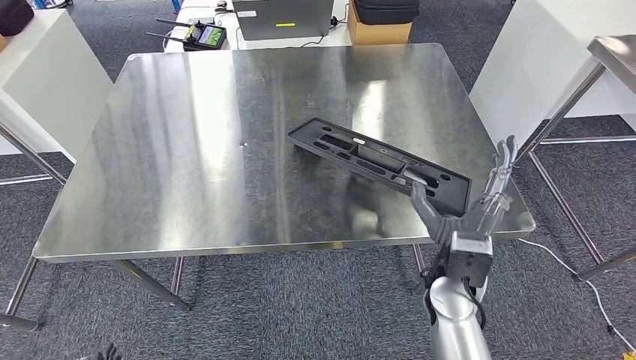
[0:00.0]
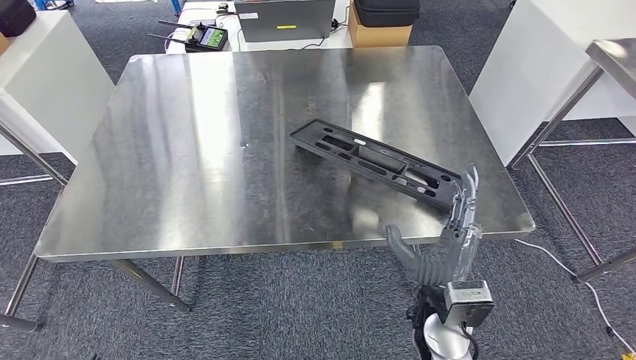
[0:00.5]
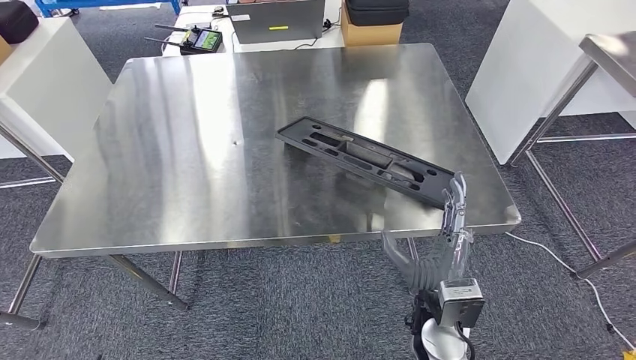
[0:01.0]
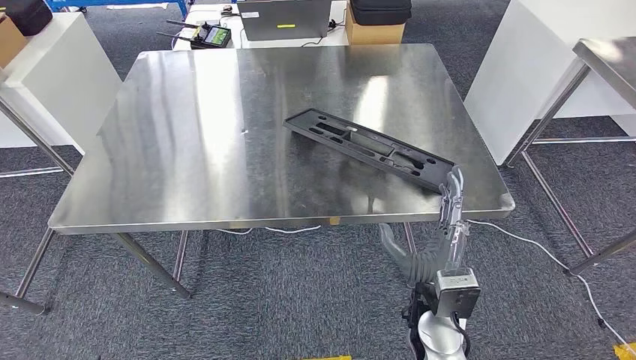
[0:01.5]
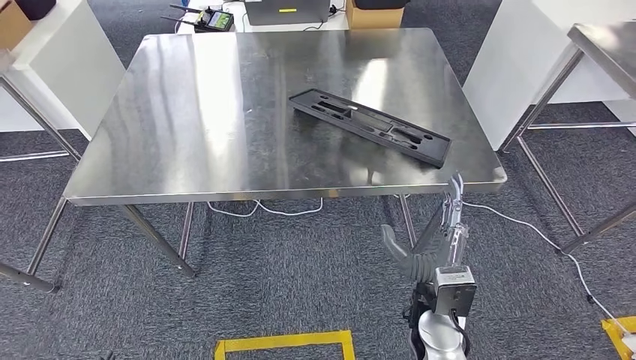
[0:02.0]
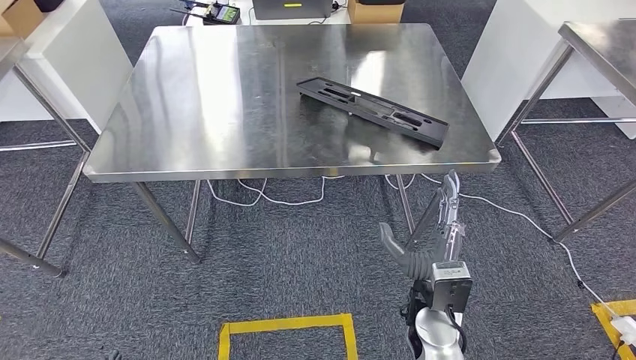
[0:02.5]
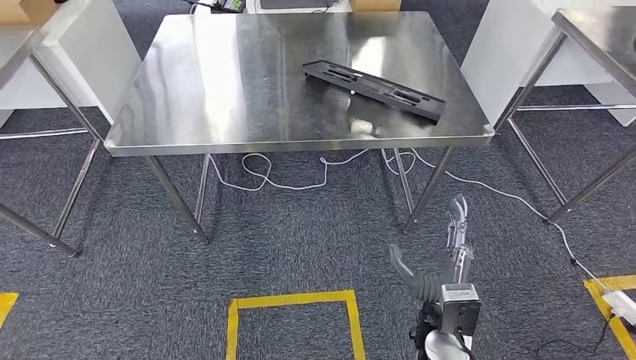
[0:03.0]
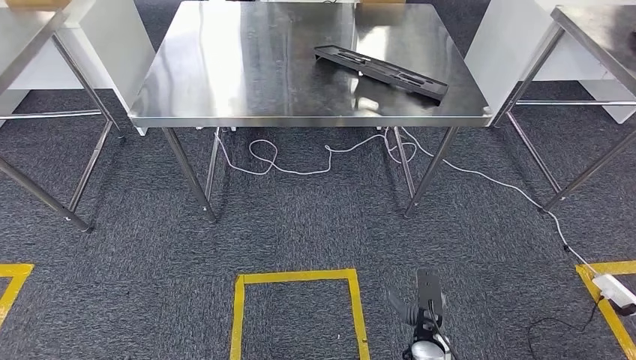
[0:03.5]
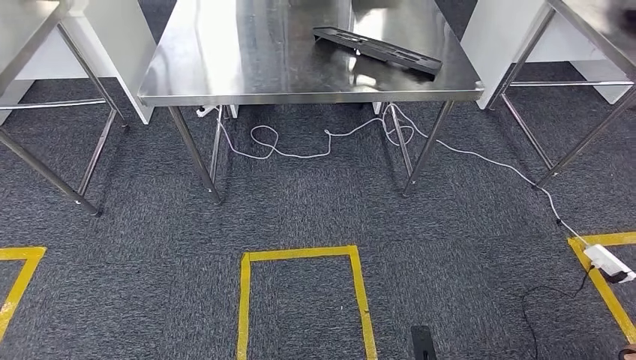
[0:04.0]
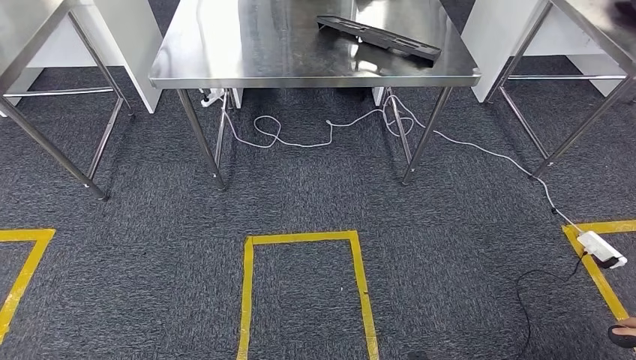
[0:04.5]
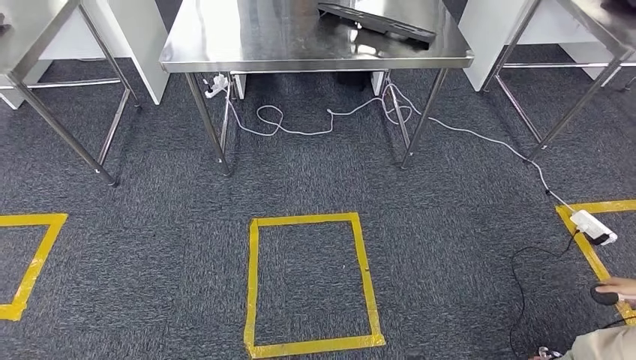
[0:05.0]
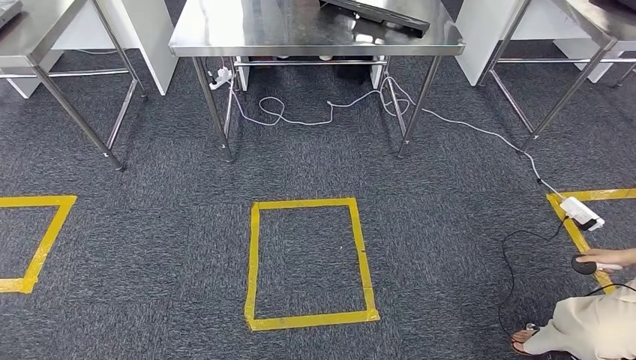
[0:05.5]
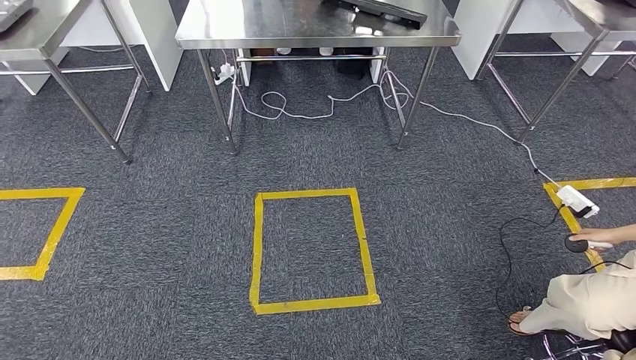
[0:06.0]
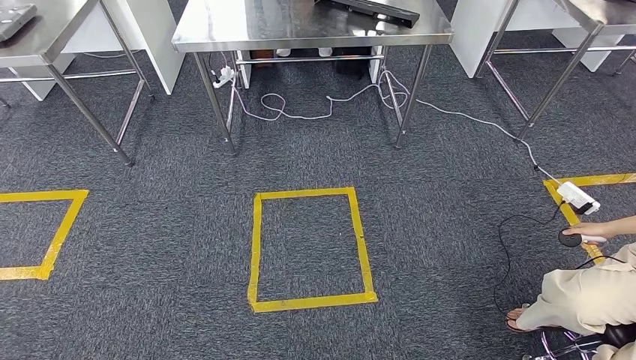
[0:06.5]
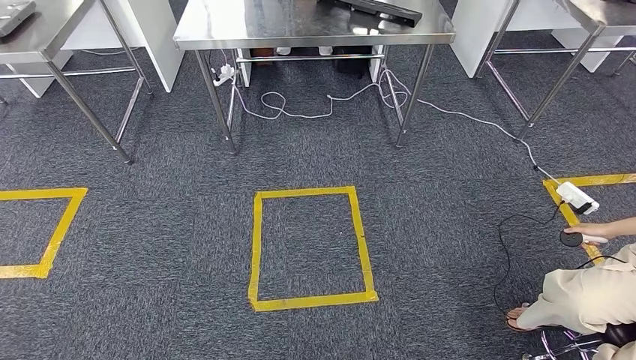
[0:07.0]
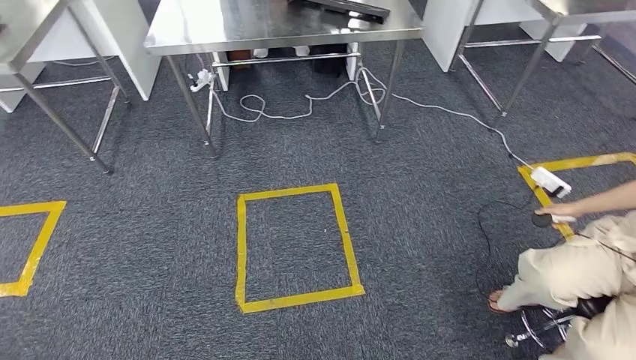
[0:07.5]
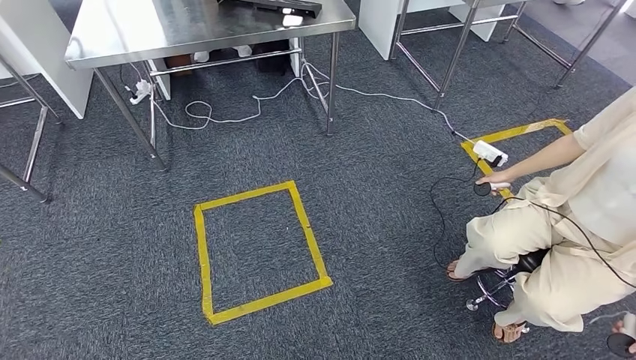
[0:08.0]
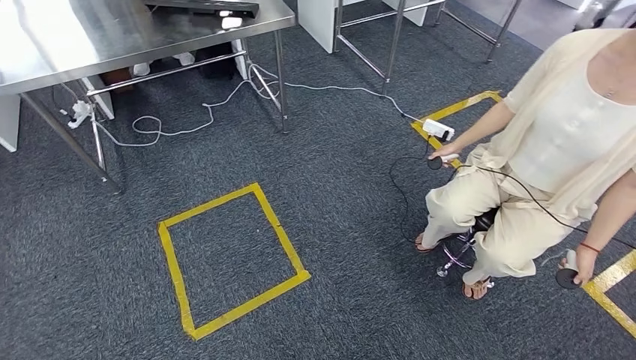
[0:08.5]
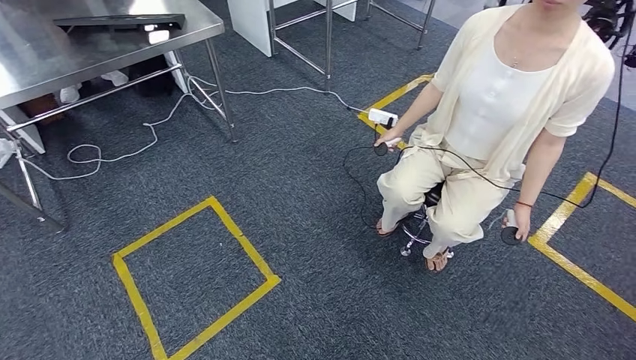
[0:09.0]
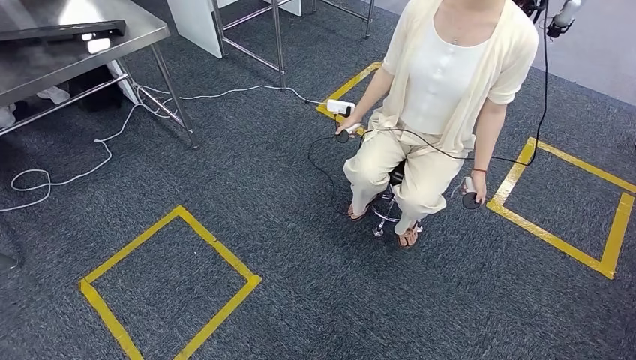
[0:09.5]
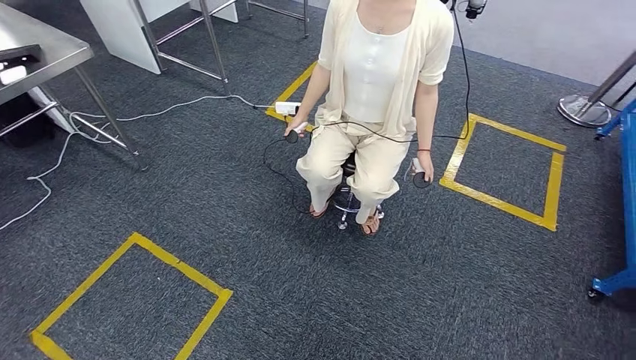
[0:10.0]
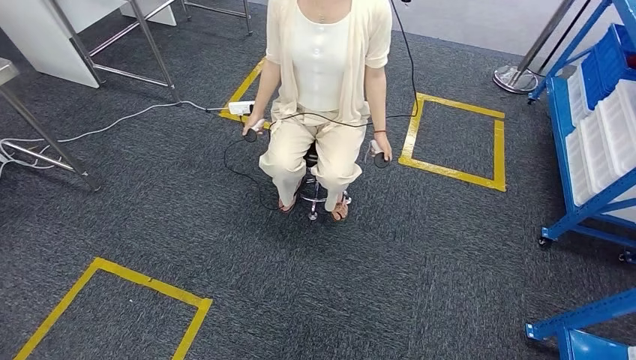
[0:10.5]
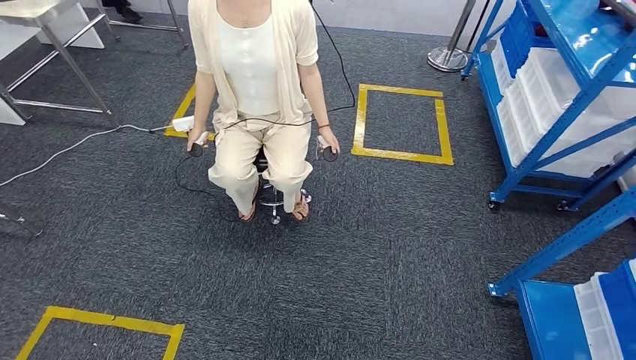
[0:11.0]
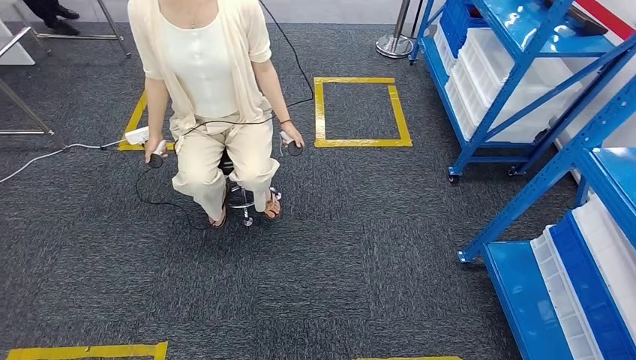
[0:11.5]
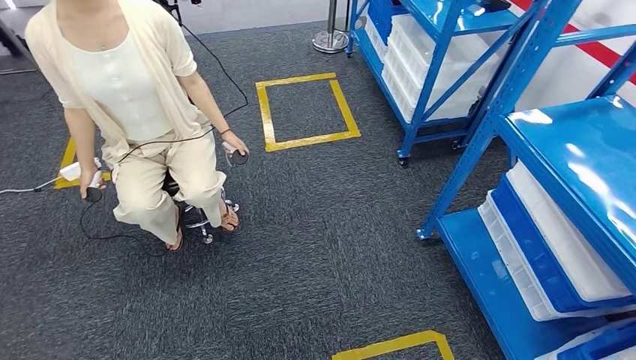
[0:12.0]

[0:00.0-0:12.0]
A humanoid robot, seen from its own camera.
Step, 0:00.0 to 0:03.5: Insert the large material into the corresponding slot on the workbench.

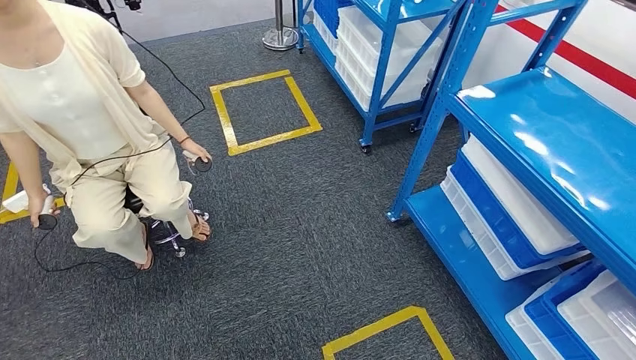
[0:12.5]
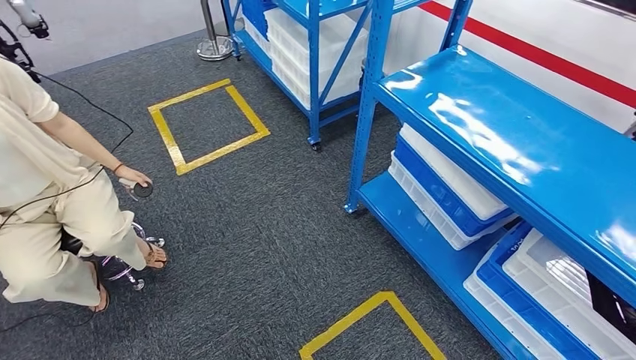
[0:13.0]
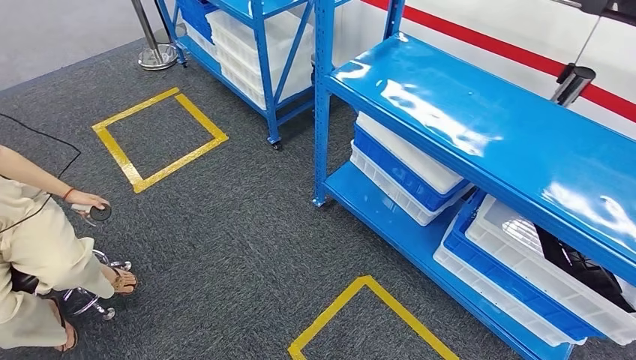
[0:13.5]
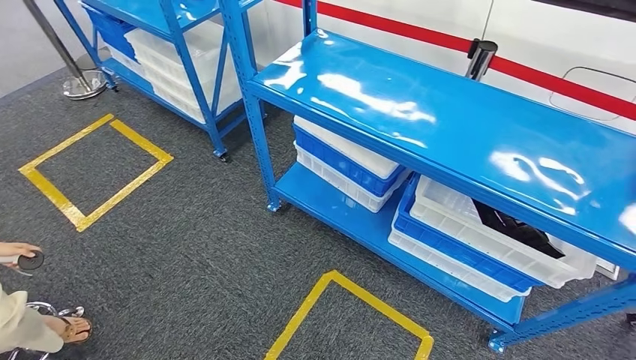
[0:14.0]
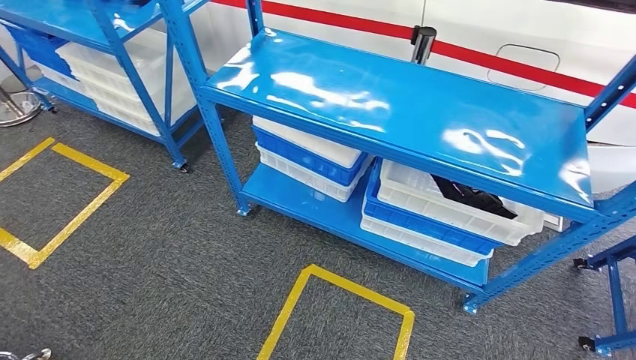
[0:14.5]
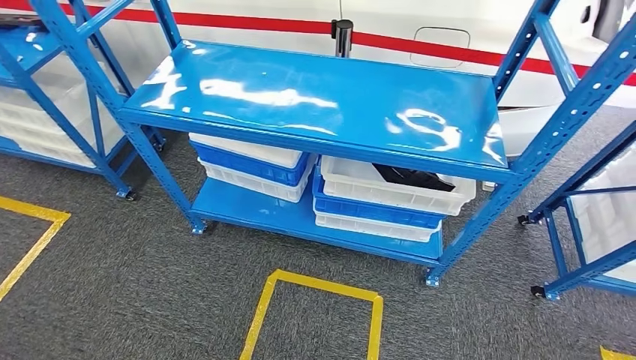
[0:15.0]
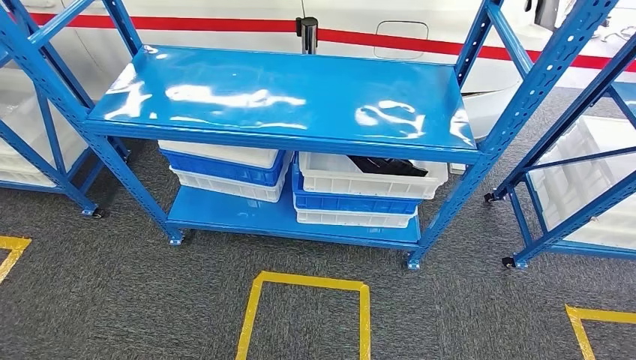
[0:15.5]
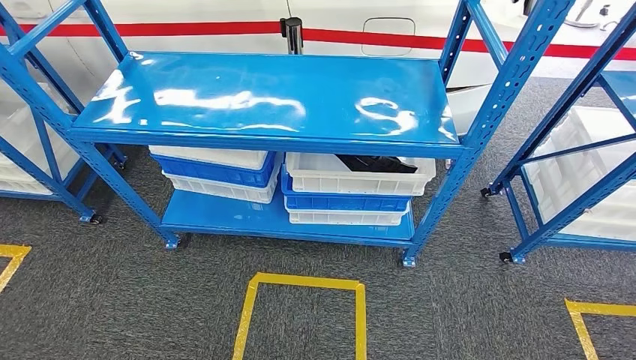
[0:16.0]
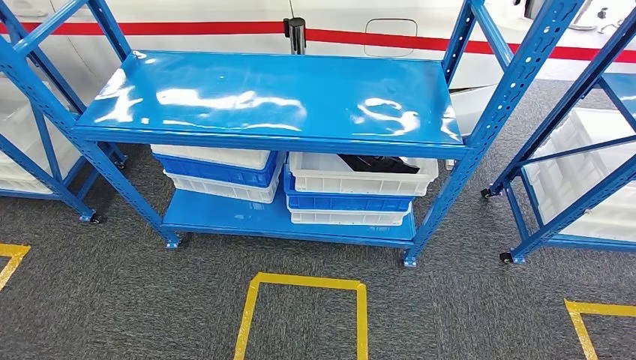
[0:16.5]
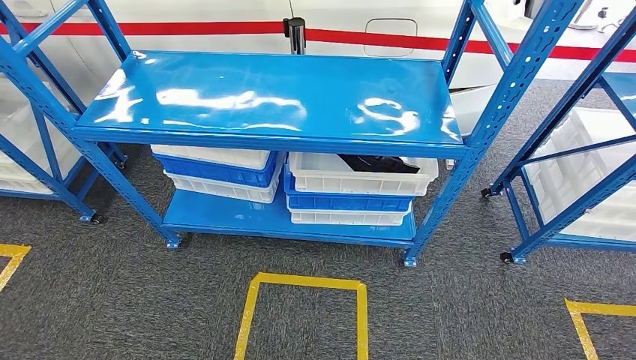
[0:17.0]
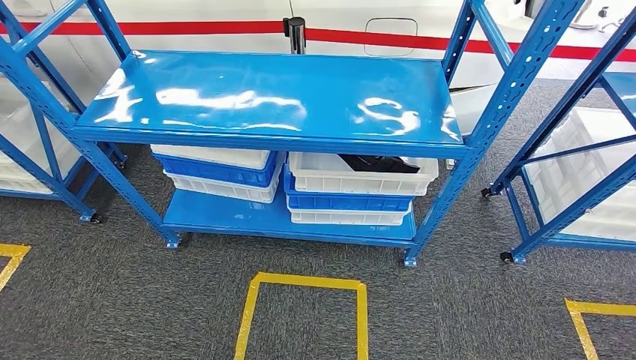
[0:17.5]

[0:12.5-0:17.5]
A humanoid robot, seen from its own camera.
Step, 0:12.5 to 0:17.5: Move to the initial position of the shelf.
